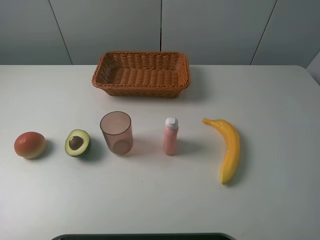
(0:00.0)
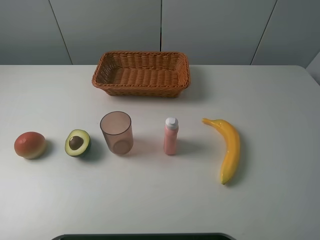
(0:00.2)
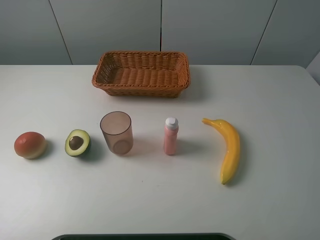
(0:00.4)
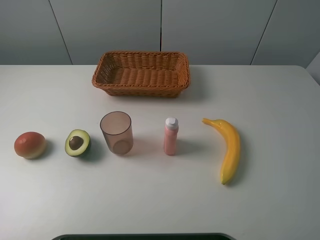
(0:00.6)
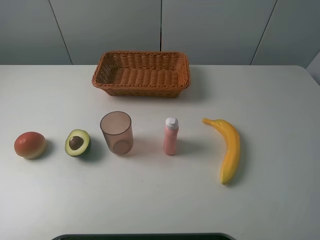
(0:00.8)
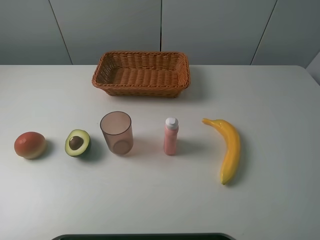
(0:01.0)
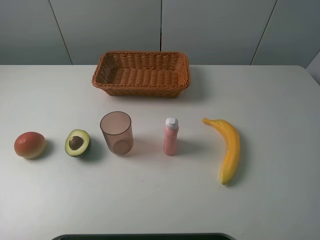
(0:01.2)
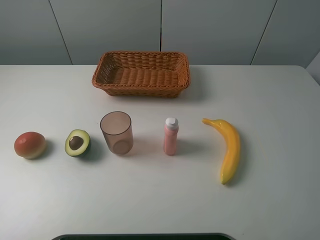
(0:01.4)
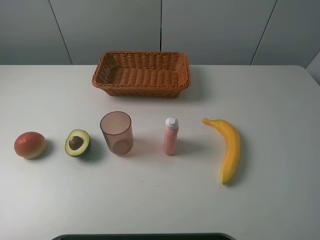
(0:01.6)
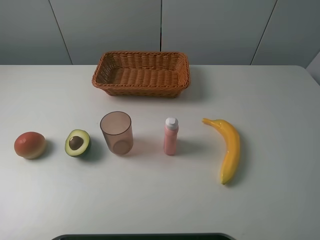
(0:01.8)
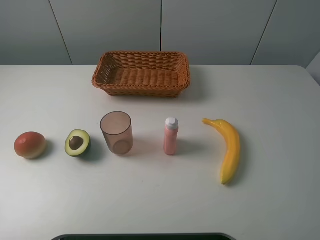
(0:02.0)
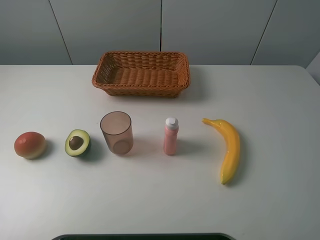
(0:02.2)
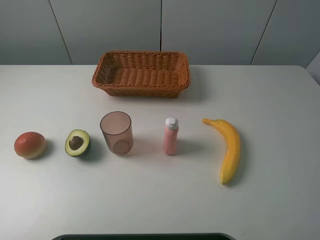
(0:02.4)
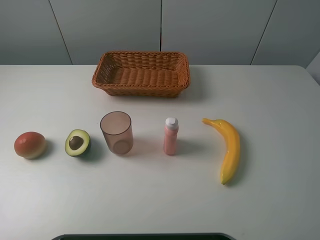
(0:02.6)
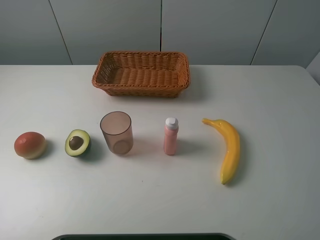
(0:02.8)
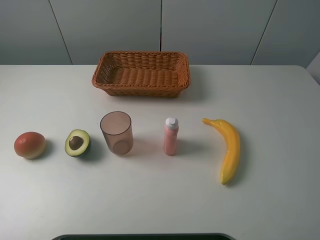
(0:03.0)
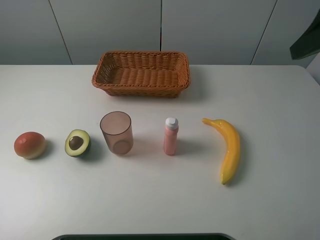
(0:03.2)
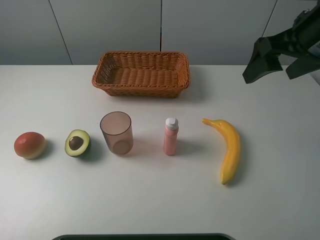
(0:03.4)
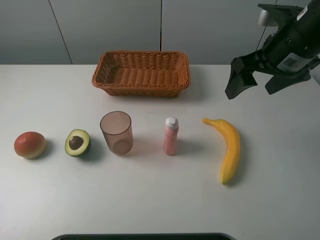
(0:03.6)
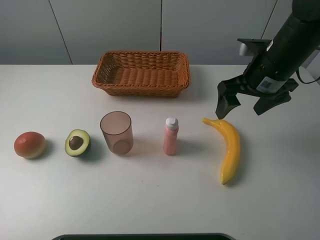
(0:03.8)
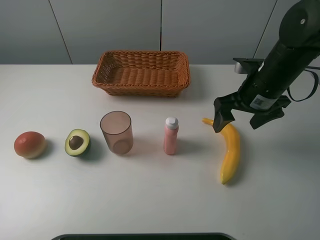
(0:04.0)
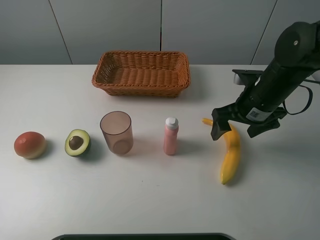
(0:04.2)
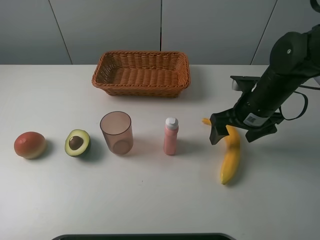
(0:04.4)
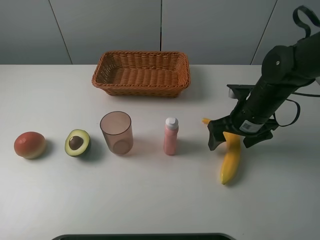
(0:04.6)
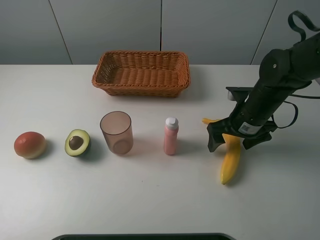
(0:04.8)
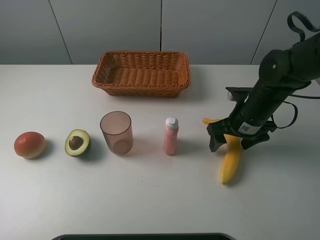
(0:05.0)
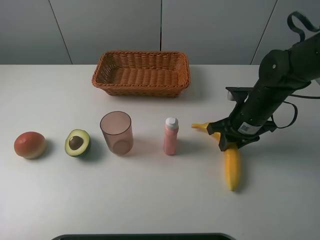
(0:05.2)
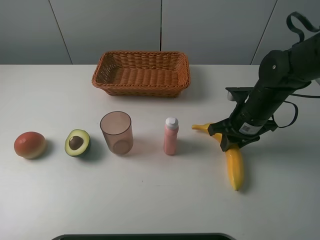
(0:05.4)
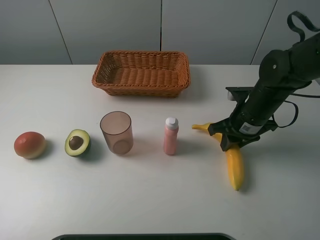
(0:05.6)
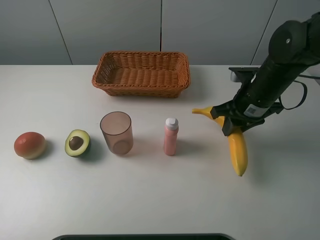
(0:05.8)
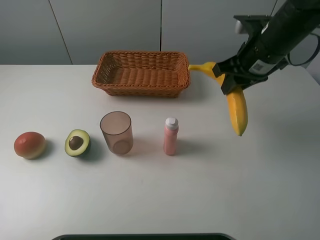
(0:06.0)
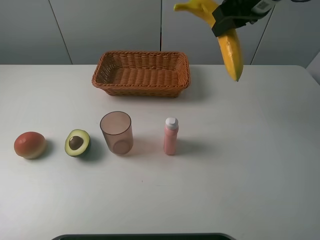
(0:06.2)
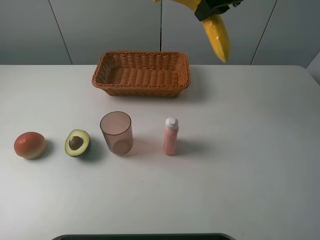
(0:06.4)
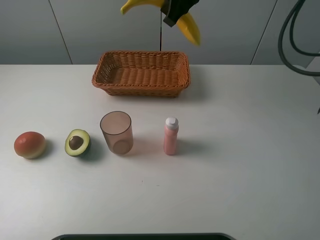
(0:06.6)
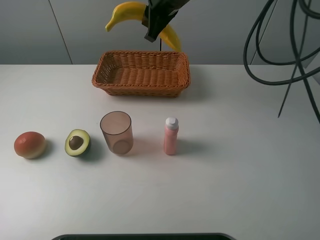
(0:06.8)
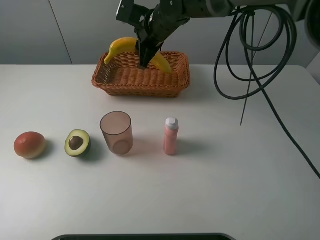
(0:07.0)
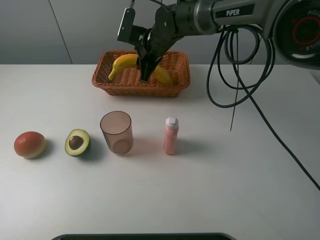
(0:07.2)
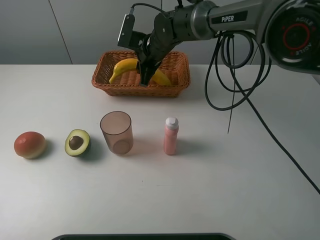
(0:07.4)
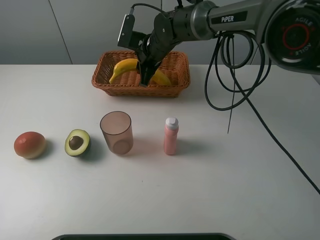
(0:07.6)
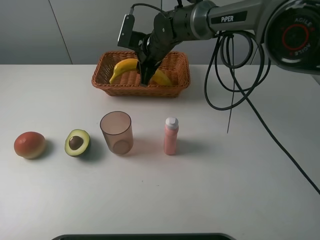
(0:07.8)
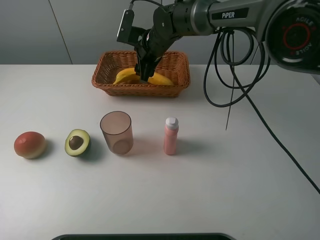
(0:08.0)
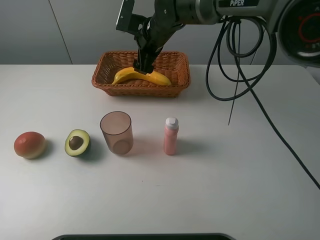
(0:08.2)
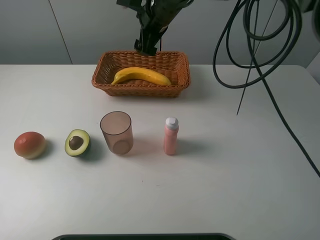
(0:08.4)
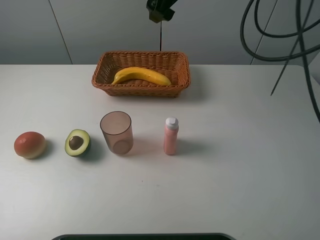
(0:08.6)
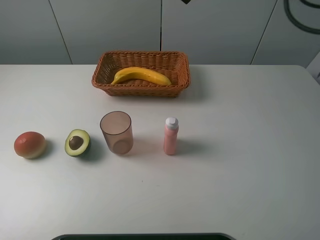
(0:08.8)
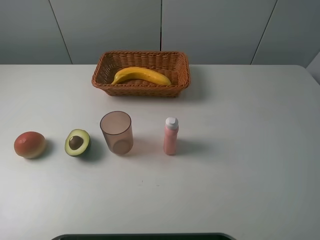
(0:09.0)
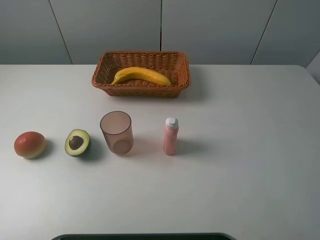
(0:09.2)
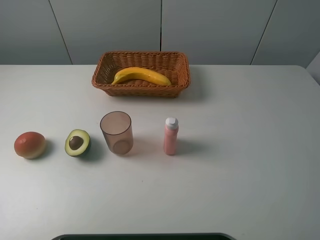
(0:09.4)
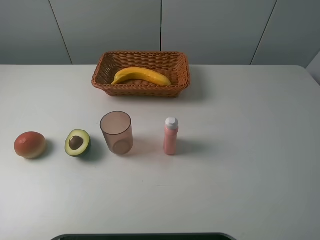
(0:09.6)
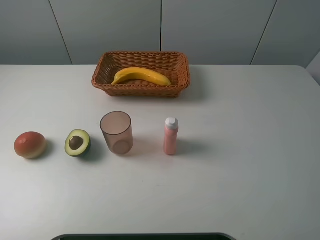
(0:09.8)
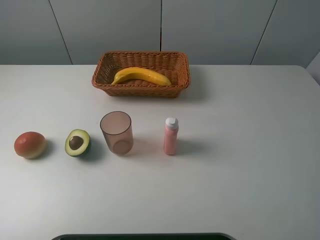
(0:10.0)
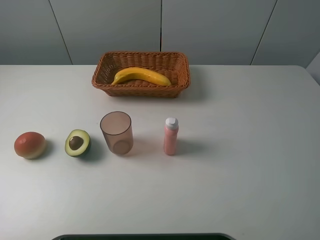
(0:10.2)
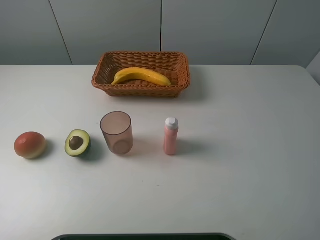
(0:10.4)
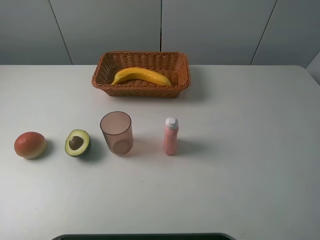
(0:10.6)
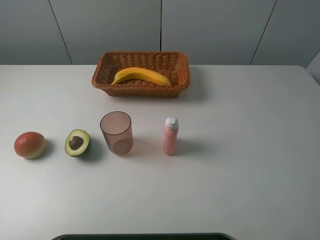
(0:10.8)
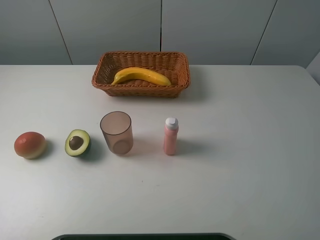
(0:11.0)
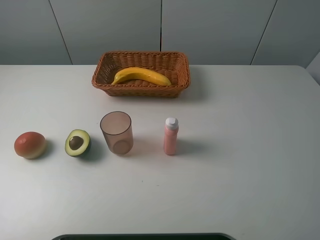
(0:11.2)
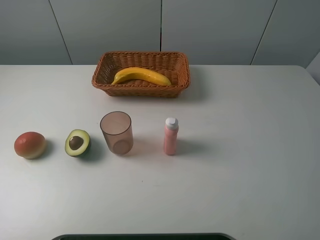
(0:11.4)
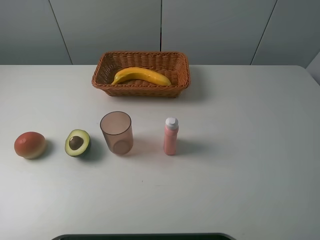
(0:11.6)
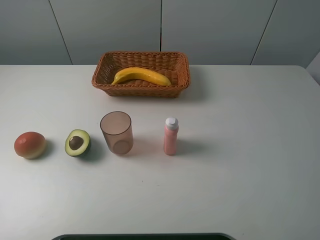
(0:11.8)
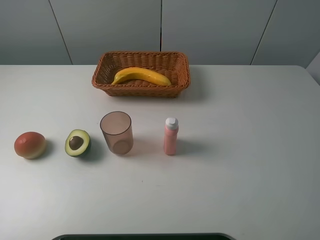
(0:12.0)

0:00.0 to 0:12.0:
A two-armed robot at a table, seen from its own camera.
Task of the whole recording: randomly pick up an item from the table and put it in the basket.
Step, 0:00.0 to 0:05.2: Grasp the banana with the right gripper.
Step, 0:05.4 to 0:08.4: Place the banana into the basket with the right gripper.
0:00.0 to 0:01.6: Both grippers stay put.
0:03.0 to 0:04.4: The right gripper shifts roughly 25 cm downward and forward.
0:04.4 to 0:06.0: The right gripper goes about 10 cm upward, and closes up.
0:06.0 to 0:07.6: The right gripper goes roughly 25 cm to the left, forward and downward.
0:07.6 to 0:09.0: The right gripper is displaced upward, to the right and backward by roughly 40 cm, and opens its fingers.
